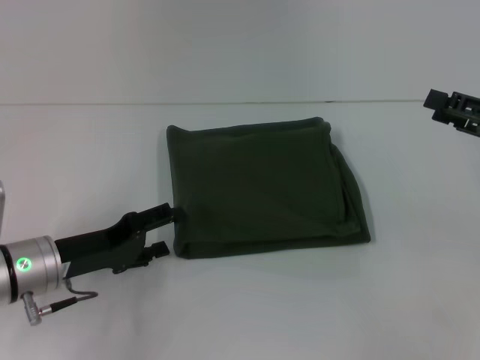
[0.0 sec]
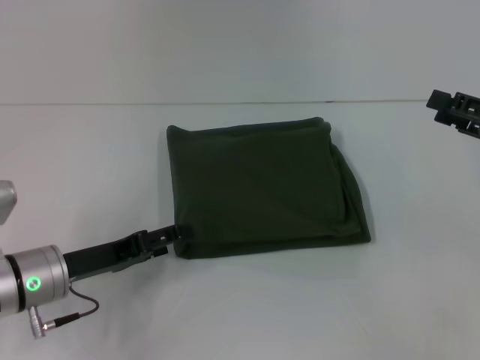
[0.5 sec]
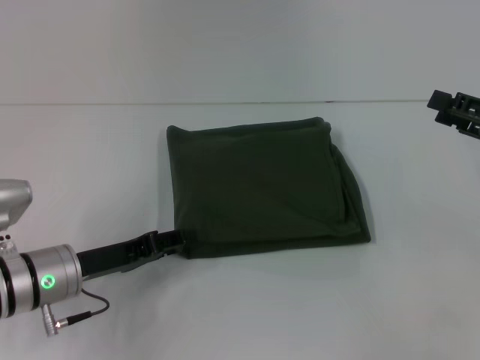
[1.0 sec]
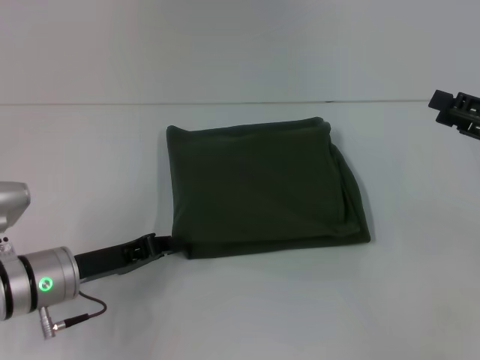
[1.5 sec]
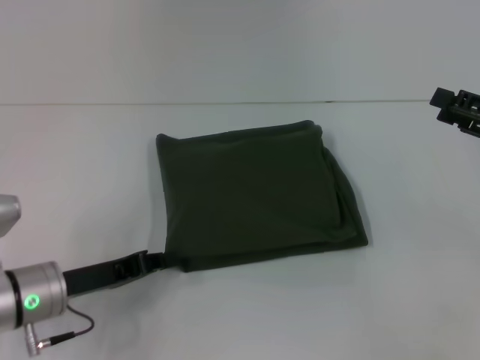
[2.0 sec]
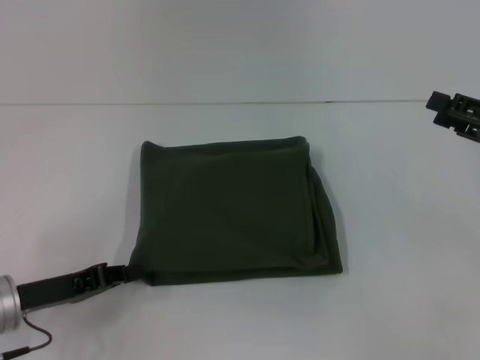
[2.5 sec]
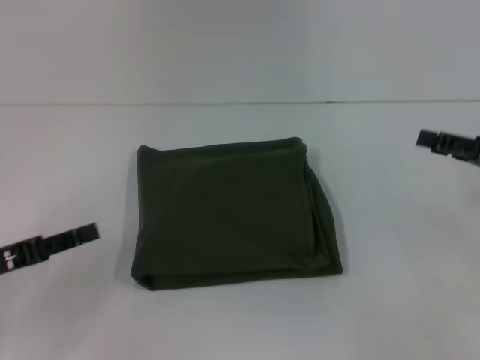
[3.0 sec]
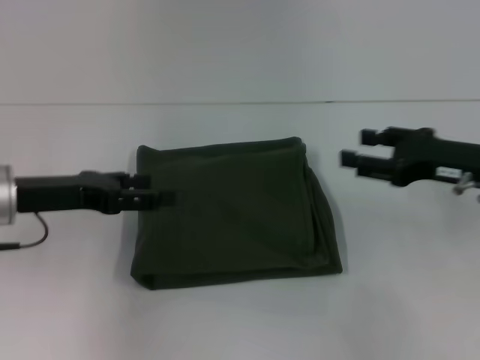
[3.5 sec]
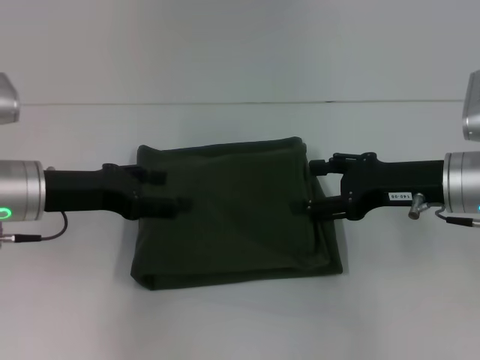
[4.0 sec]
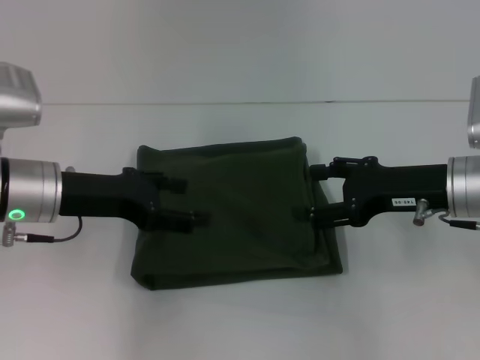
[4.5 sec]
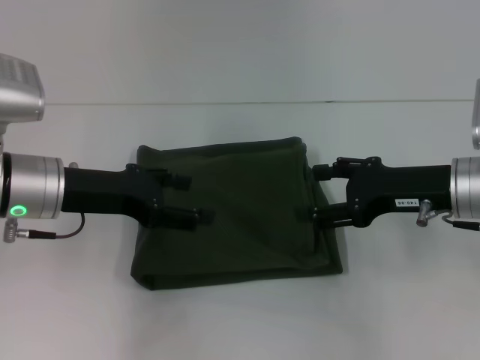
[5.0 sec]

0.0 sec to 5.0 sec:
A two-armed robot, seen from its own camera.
0.0 sec to 2.5 sec: The left gripper ends up approximately 5 cm from where it was, and closes.
2.5 sec to 5.0 sec: The left gripper moves upward, forward and to the right, approximately 15 cm, and opens; the right gripper goes some 10 cm to the left.
